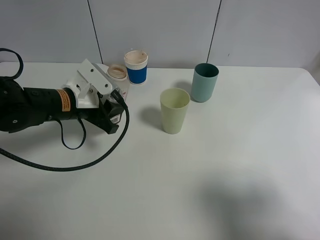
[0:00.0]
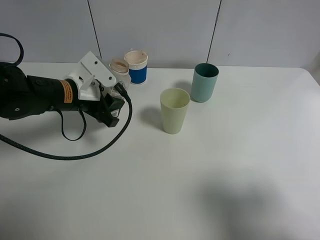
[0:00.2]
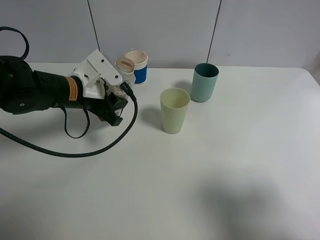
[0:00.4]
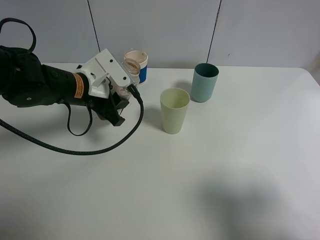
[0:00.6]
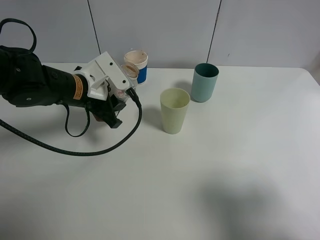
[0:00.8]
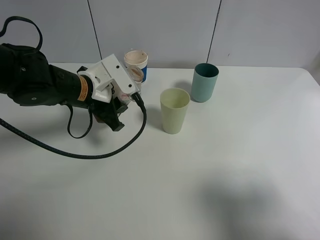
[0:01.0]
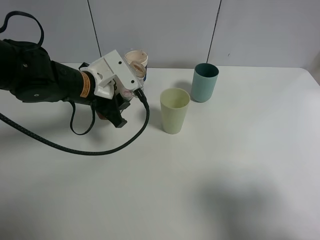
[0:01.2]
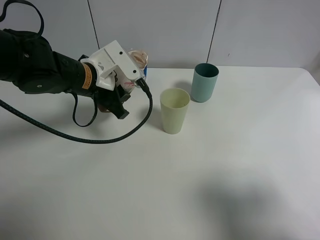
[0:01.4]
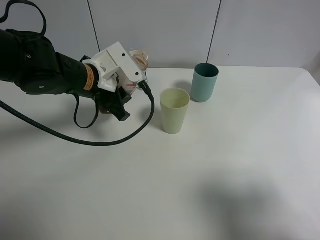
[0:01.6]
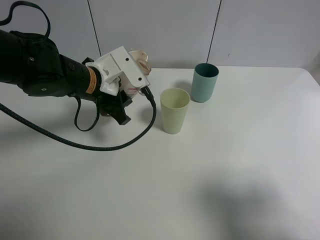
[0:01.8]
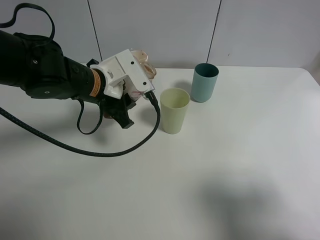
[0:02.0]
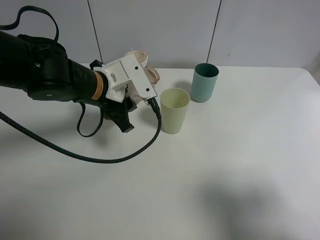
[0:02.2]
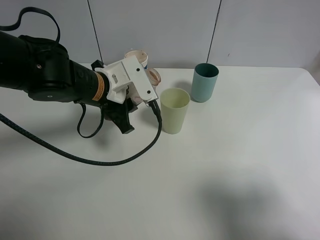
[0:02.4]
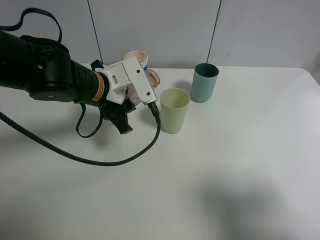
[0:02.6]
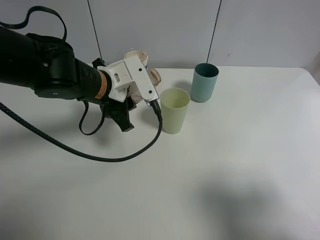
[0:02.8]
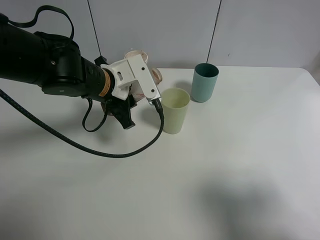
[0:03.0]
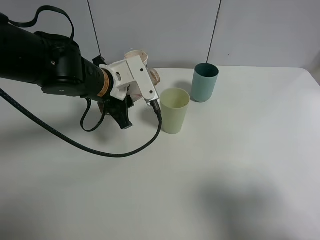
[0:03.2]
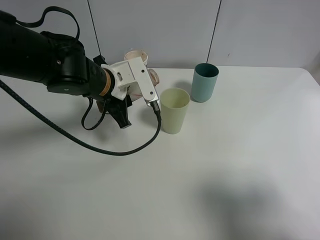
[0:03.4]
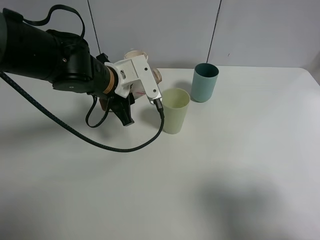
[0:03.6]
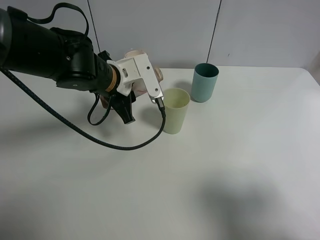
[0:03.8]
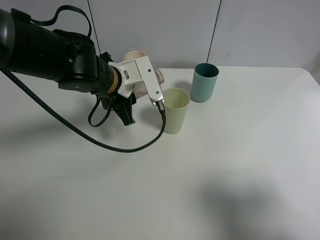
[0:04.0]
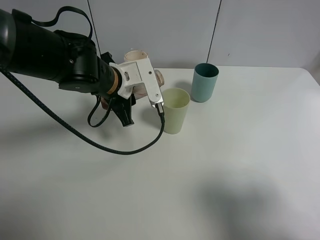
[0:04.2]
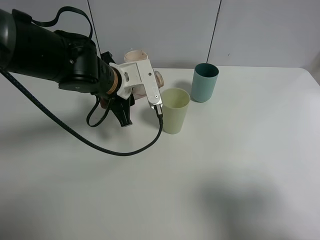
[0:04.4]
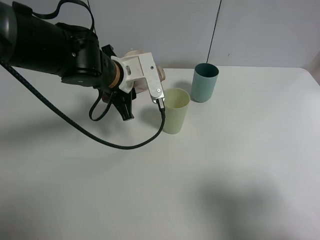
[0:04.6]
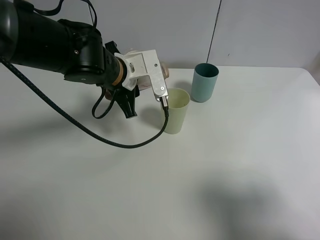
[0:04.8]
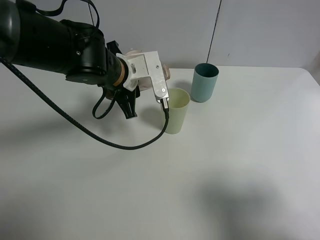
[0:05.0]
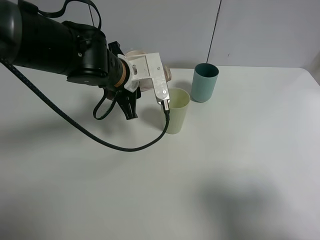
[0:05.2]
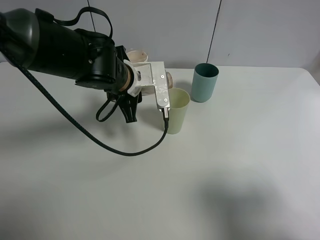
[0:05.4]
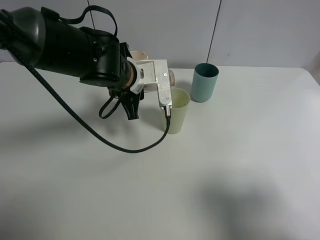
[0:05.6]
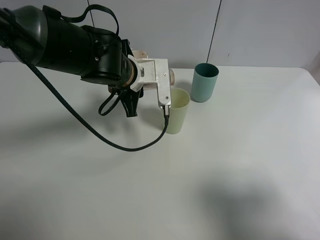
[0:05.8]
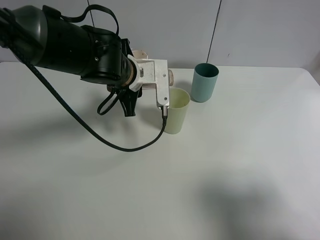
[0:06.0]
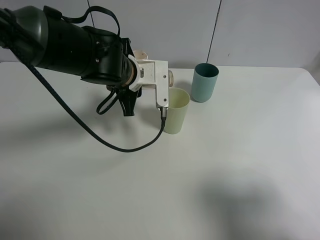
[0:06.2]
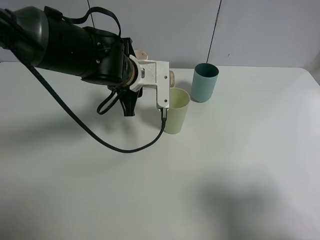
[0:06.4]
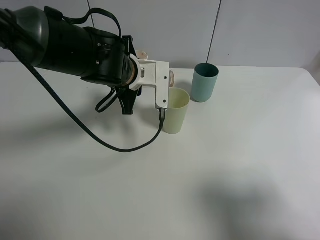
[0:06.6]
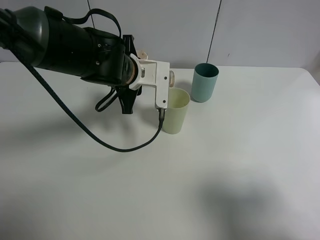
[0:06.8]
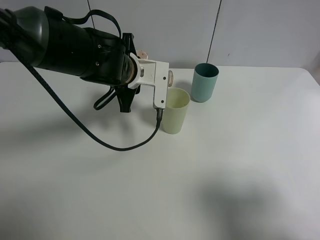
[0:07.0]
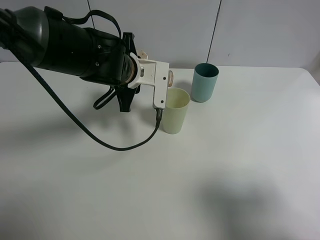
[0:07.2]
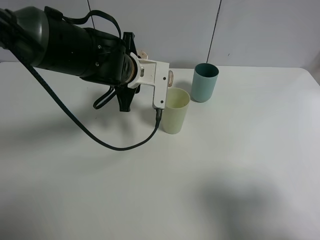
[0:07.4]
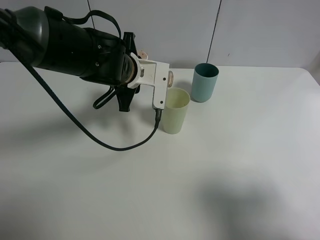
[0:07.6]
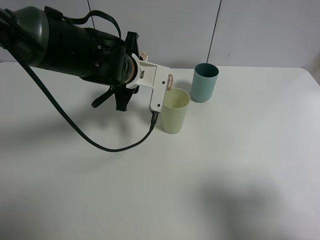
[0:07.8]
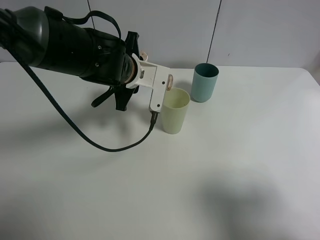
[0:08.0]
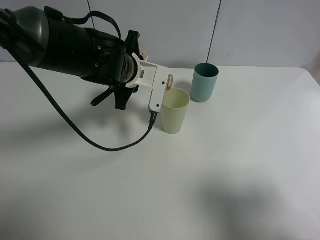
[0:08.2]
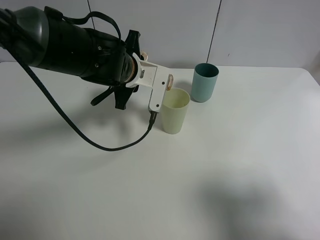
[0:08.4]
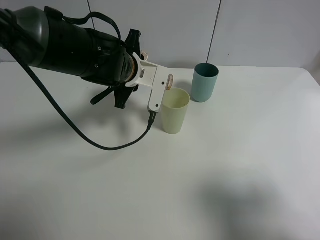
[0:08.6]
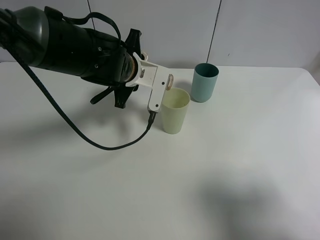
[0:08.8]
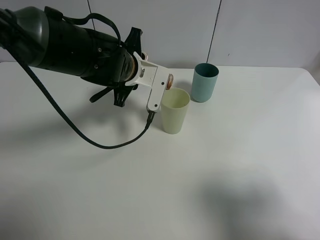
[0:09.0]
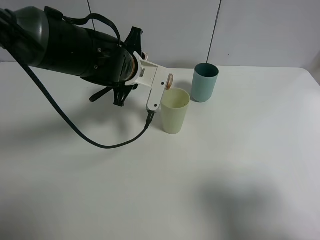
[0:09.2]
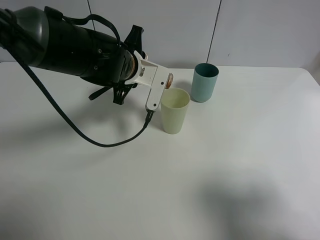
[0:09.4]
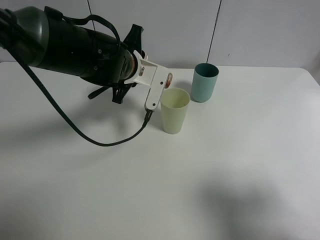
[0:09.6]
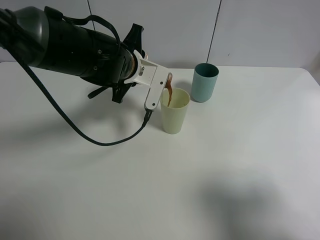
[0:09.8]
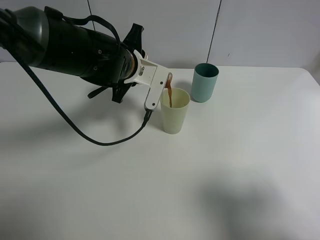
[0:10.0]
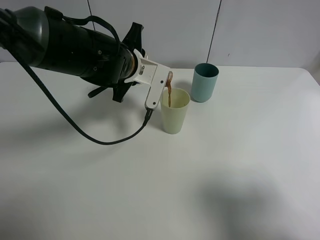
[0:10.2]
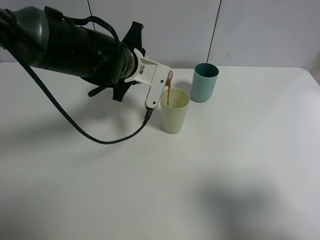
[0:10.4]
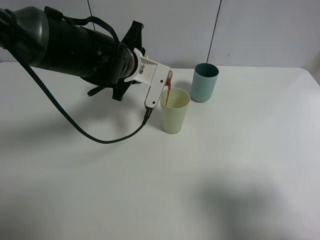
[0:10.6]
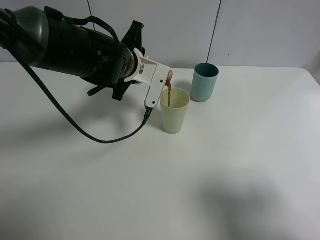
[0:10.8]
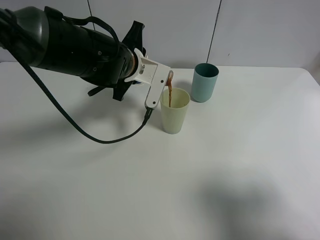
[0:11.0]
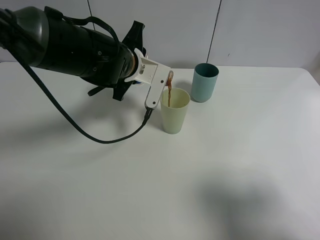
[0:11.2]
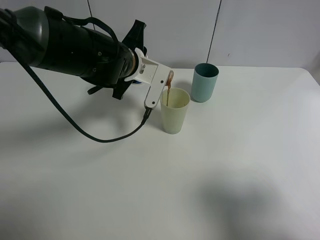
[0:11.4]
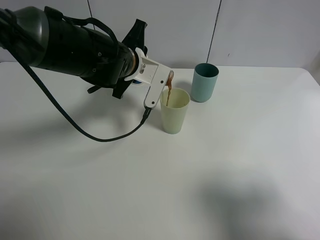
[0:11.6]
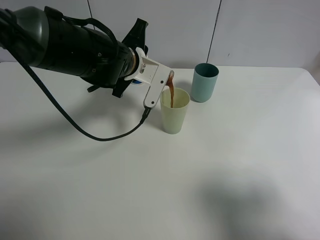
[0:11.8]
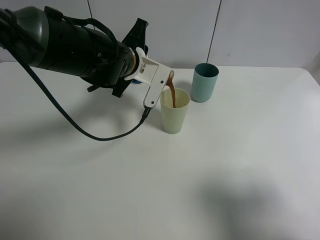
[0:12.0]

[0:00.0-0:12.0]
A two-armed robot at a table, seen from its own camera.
Task of the whole recording: use a gripper to hold the bottle of the drink and pour it into a random cup.
0:00.0 to 0:01.6: The left gripper changes place by approximately 5 cm.
0:01.6 to 0:03.0: The grippers move only a little.
0:03.0 to 0:04.4: The grippers make only small movements.
0:04.4 to 0:06.0: The grippers stay close to where they were, moving slightly.
0:06.0 to 0:07.6: There are only small adjustments of the grippers.
0:07.6 to 0:09.0: There are only small adjustments of the grippers.
0:09.0 to 0:10.4: The two grippers keep their place.
0:10.4 to 0:12.0: The grippers move only a little.

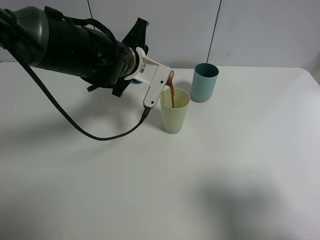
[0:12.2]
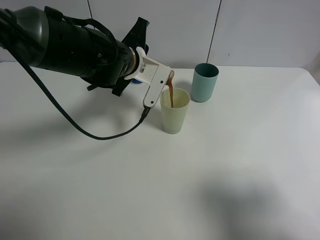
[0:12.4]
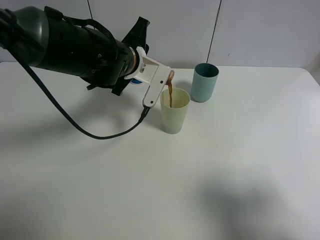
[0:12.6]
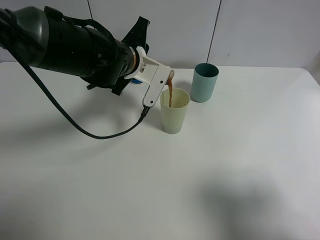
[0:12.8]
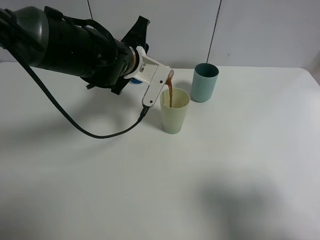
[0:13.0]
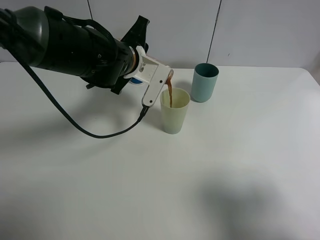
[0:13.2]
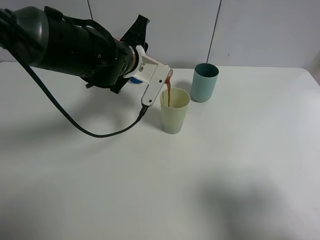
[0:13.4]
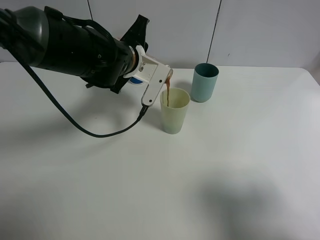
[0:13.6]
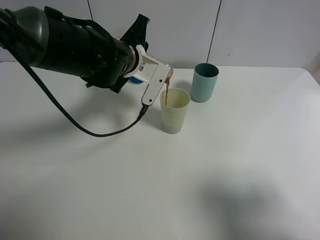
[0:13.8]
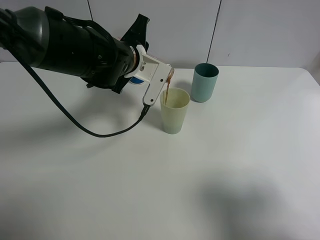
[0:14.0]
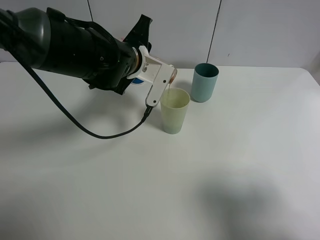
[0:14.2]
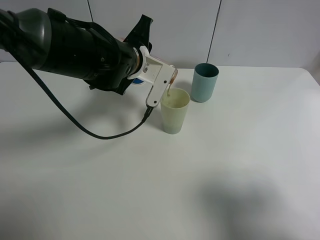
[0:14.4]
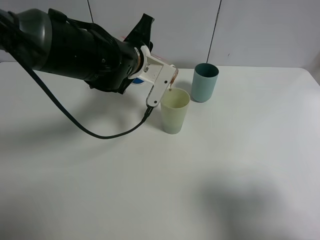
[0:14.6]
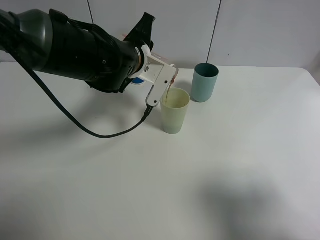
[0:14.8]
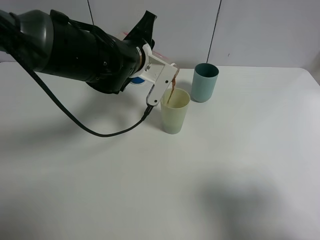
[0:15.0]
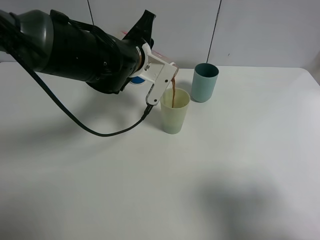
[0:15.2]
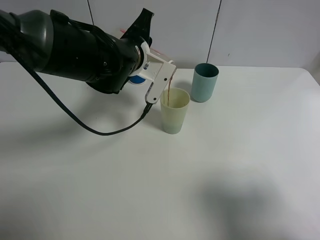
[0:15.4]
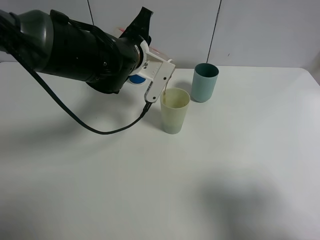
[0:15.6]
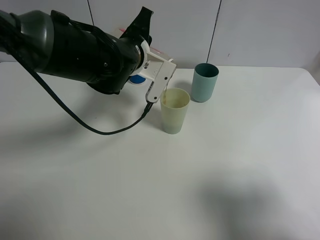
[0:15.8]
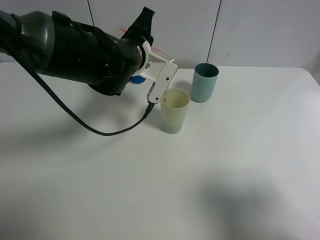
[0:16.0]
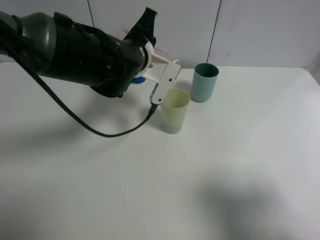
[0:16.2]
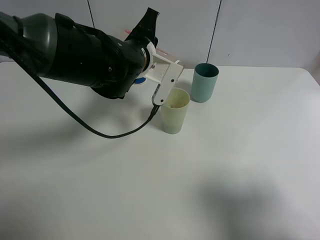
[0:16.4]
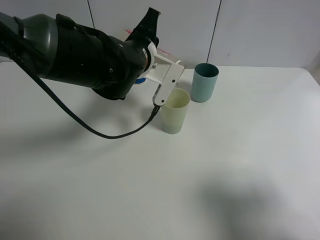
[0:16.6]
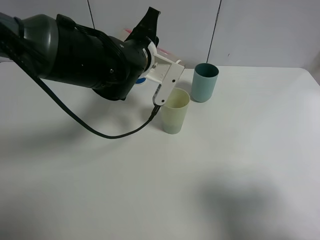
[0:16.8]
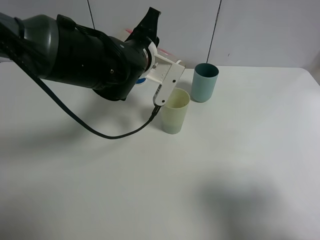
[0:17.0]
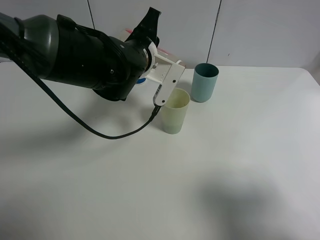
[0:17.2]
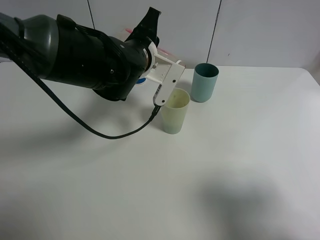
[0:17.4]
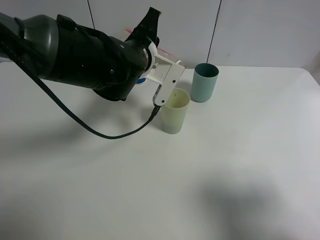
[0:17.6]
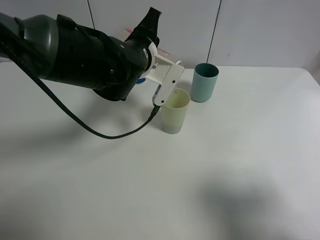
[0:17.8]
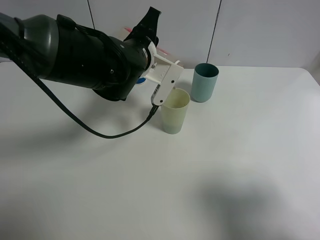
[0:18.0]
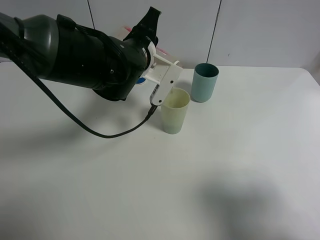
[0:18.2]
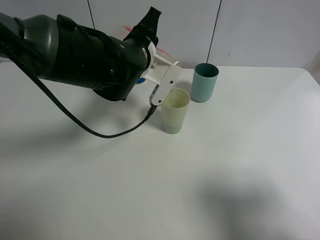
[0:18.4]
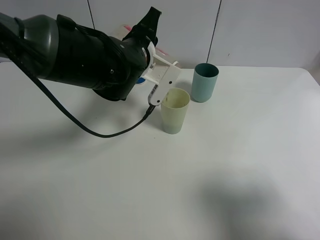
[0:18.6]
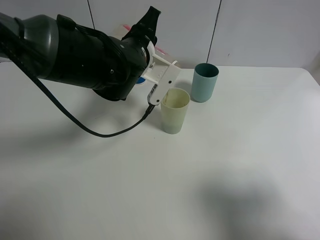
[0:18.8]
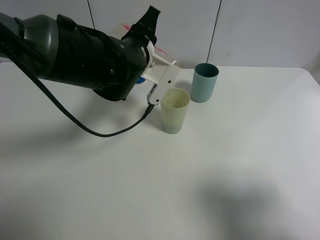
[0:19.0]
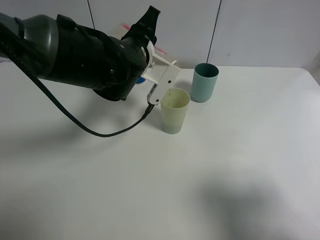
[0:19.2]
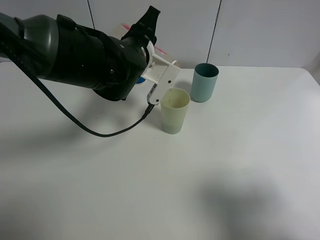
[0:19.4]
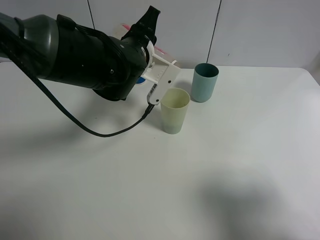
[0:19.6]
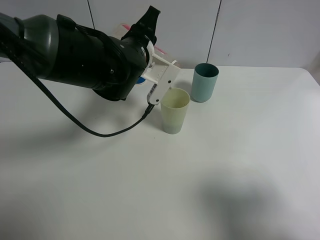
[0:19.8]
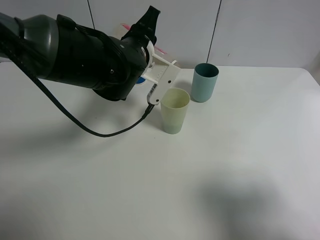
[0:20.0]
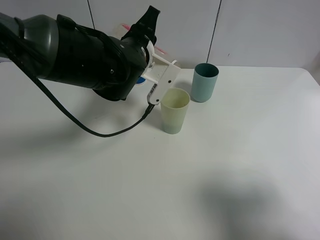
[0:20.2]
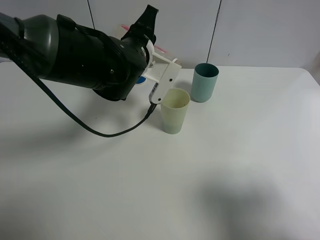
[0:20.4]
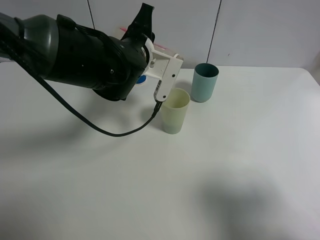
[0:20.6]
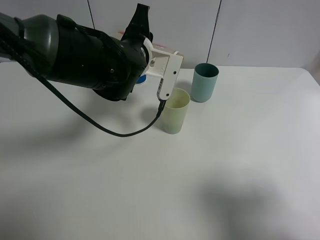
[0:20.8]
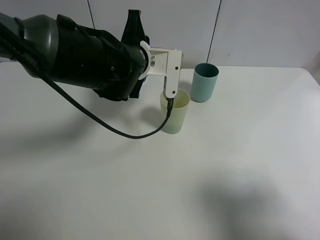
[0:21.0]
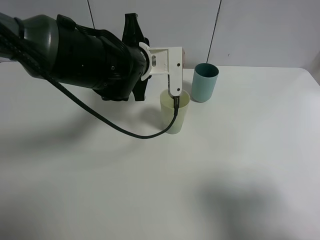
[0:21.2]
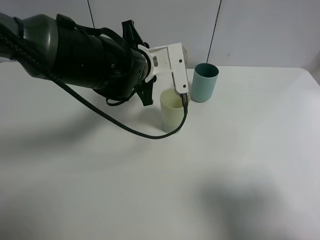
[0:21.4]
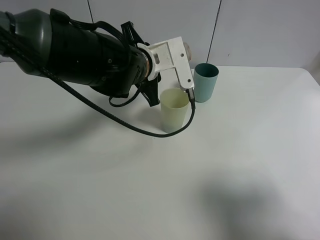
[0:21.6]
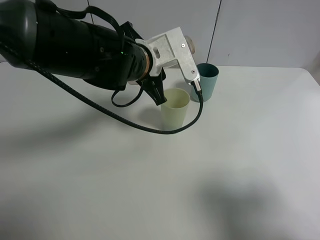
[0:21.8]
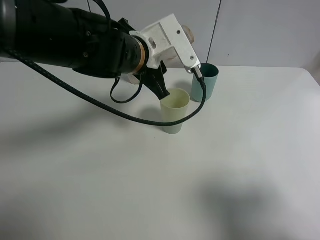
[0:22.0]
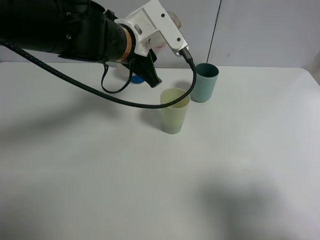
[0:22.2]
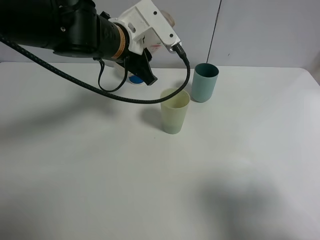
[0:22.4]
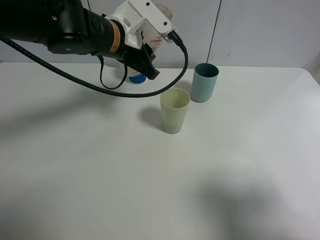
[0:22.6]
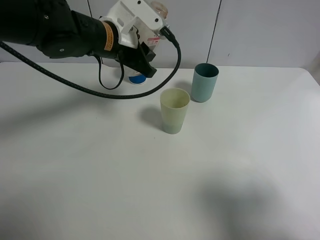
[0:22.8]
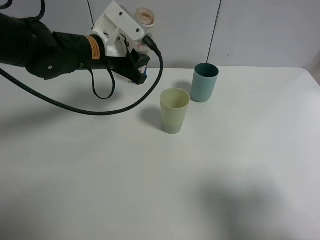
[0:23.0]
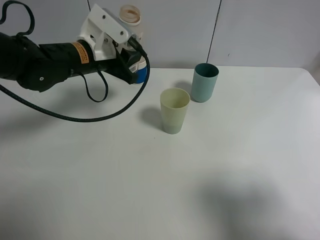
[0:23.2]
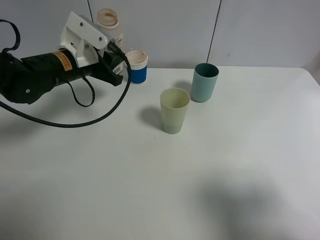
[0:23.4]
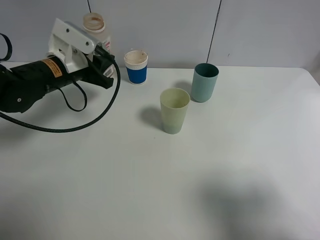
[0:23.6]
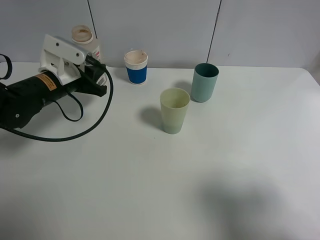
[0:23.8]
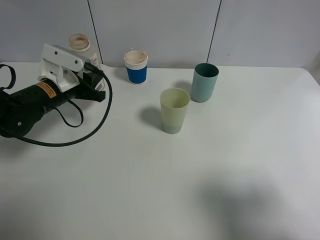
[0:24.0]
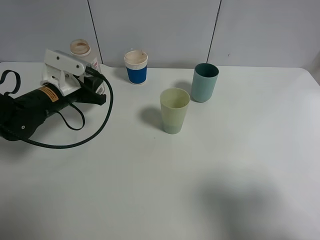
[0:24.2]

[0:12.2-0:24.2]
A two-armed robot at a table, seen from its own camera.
Task of the whole recording: use a gripper to hold the bottle of the drink and pour it into a random cup.
Step, 0:12.2 to 0:21.6: Pour the cranberry juice into the White Plastic Cup with the left gripper.
0:12.2 to 0:13.8: Both grippers stay about where they are.
0:13.8 to 0:16.6: There are only small adjustments of the grippers.
0:16.6 to 0:18.2: Both grippers stay about where they are.
0:18.2 to 0:19.8: Neither gripper changes place.
0:21.2 to 0:22.6: The left gripper shifts by about 5 cm.
0:22.6 to 0:24.2: The left gripper shifts roughly 20 cm to the left and downward.
